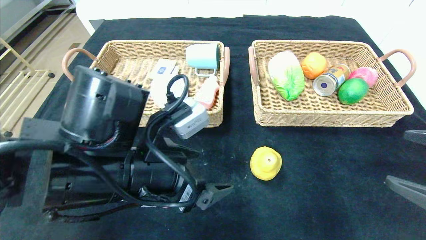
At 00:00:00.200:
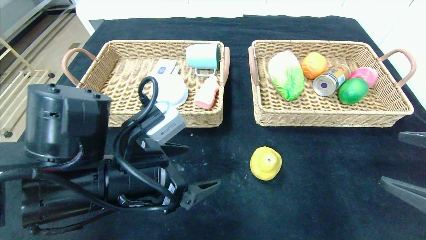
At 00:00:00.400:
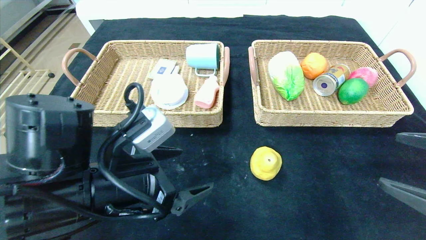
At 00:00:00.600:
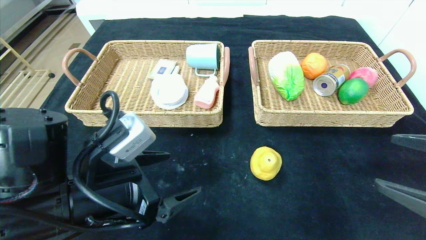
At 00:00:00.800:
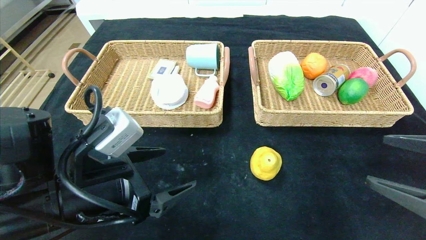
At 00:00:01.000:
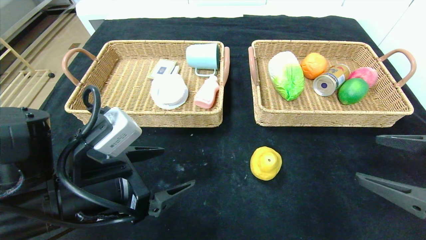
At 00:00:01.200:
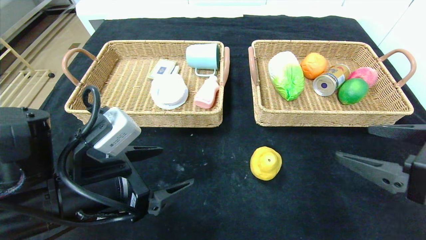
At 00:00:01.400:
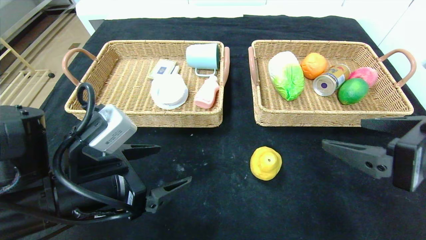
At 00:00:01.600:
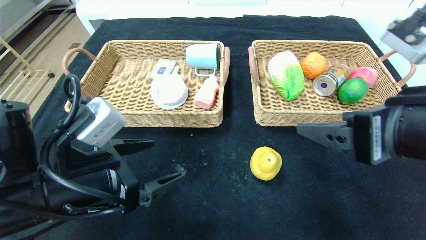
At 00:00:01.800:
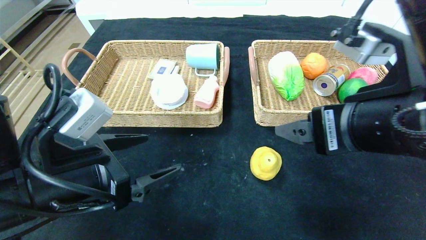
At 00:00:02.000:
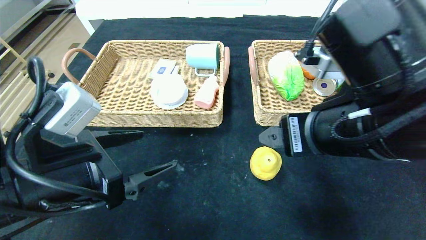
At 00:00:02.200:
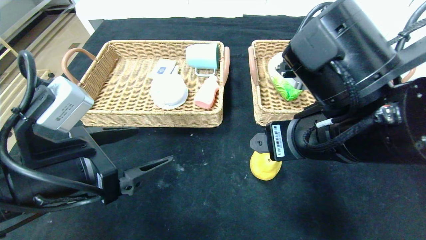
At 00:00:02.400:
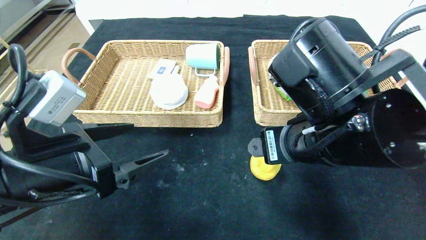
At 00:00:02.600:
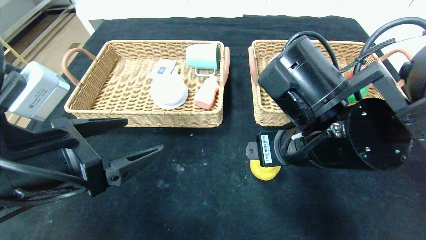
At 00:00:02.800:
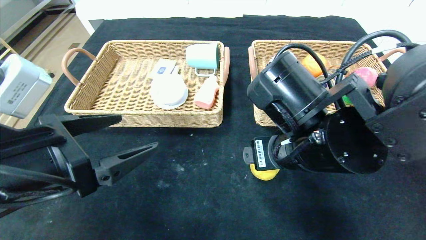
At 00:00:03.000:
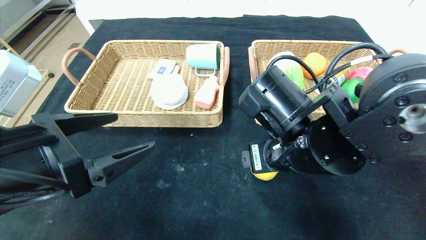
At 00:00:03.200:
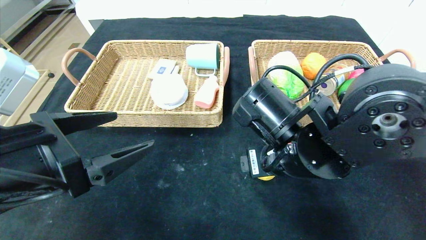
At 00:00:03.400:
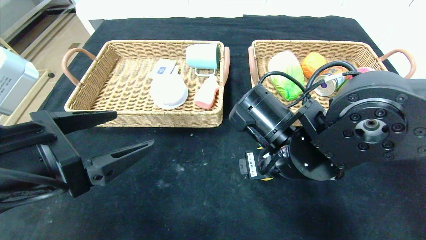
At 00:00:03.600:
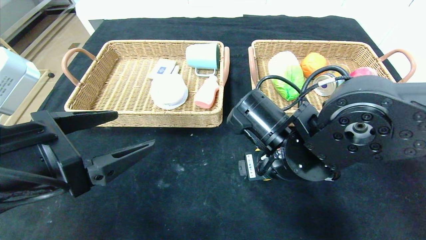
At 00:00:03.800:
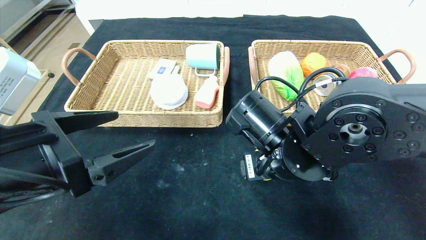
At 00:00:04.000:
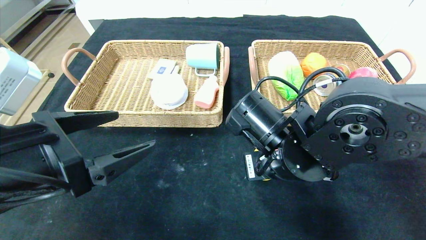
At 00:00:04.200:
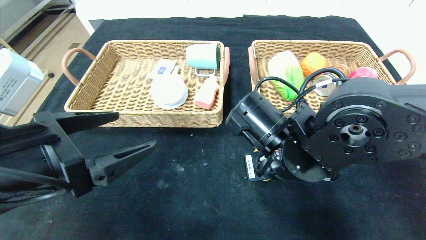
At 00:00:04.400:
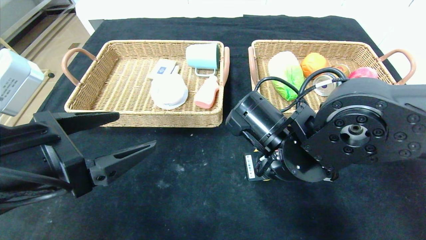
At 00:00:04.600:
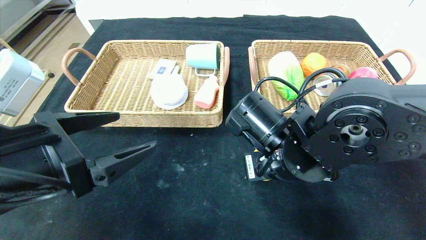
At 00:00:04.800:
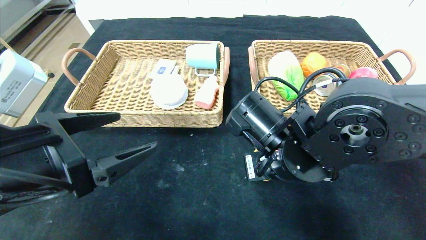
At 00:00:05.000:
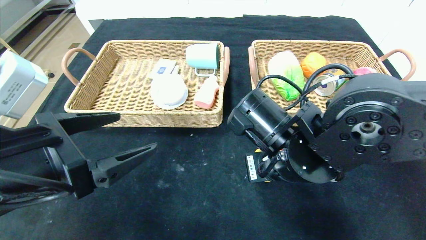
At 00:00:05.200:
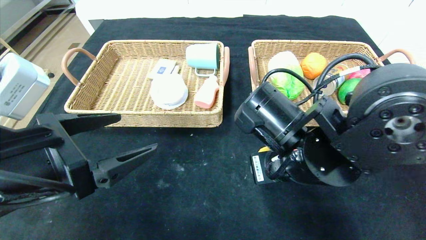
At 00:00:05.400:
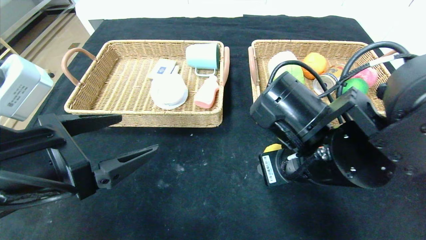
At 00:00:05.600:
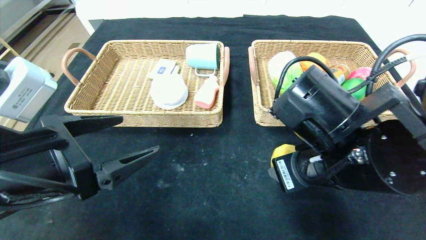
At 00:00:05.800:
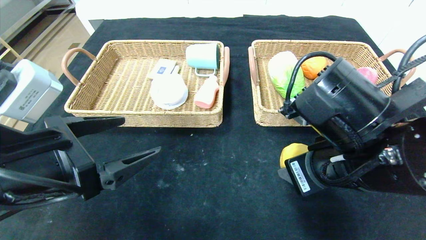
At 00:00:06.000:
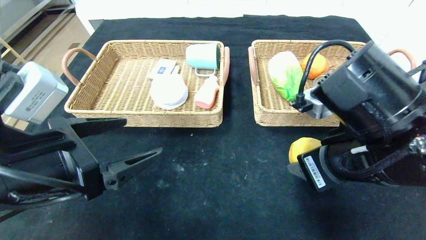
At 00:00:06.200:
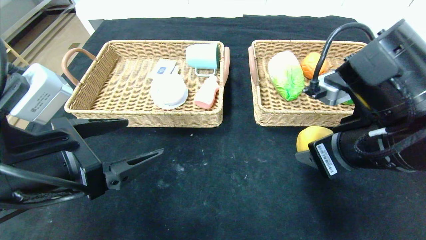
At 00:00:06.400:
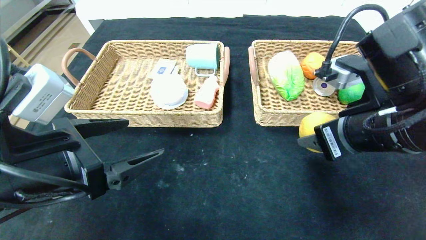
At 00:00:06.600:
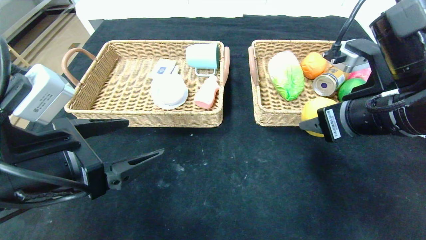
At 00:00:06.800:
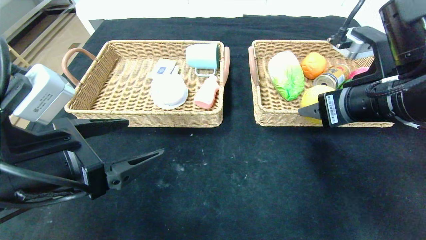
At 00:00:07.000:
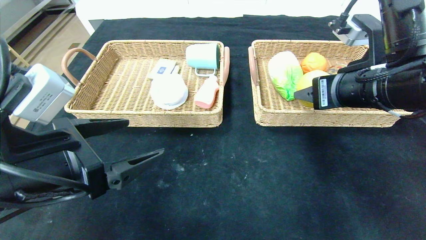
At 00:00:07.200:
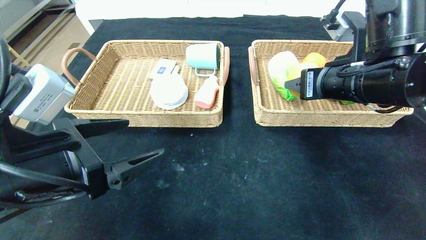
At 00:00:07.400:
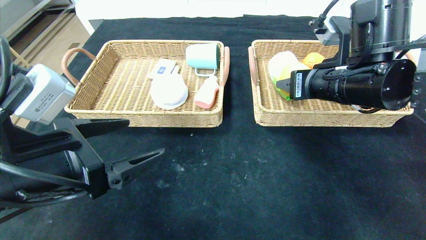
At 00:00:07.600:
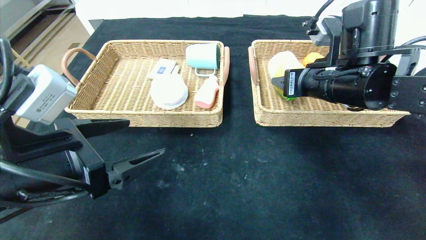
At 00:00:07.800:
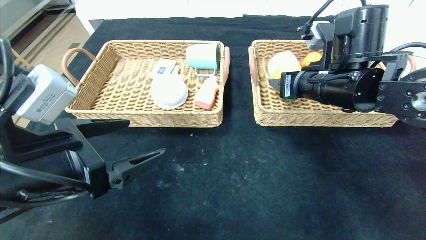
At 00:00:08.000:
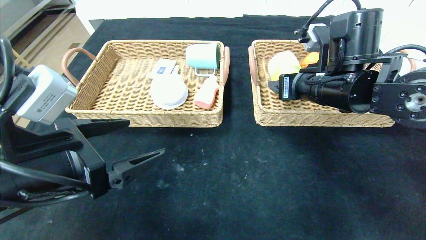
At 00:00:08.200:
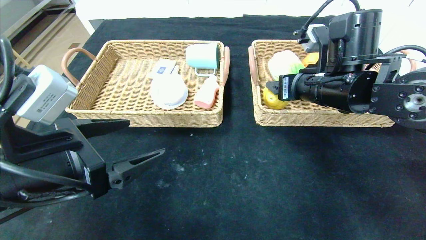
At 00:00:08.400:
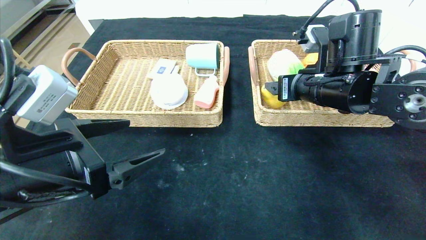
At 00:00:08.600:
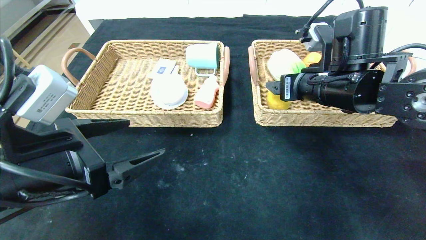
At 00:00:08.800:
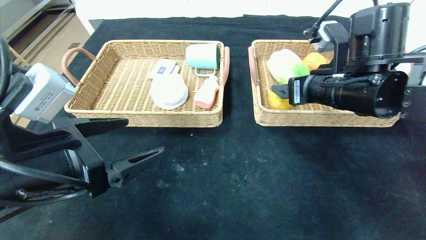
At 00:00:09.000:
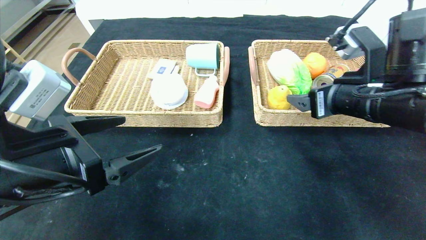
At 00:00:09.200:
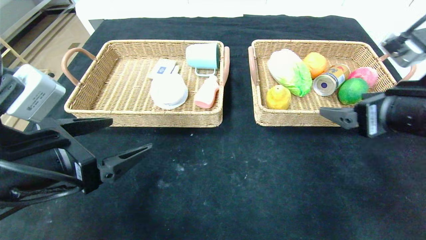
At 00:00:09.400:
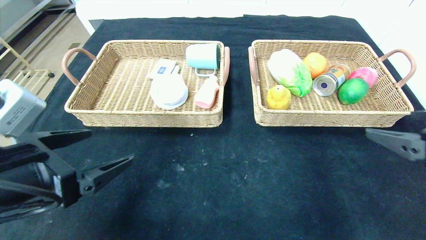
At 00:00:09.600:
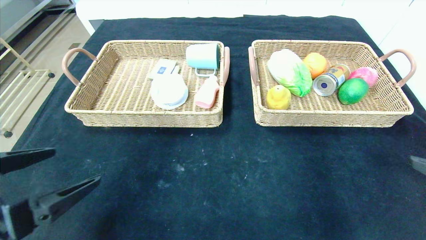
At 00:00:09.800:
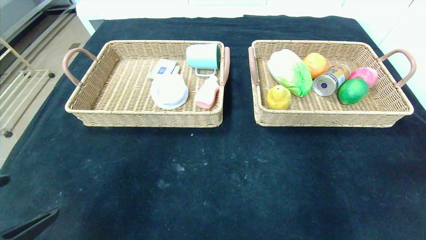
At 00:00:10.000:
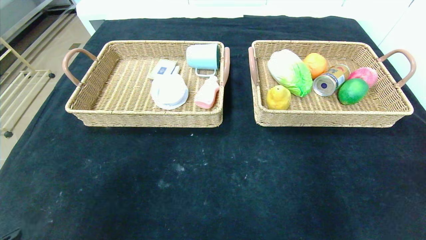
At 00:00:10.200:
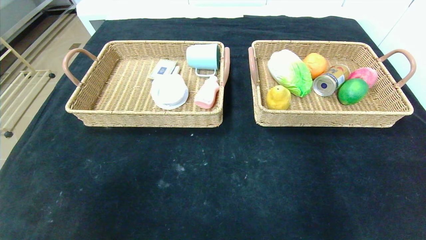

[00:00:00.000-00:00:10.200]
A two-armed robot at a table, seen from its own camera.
Step, 00:00:00.000 to 00:00:08.400: Grasp the pear and put it in the right basket.
00:00:00.000 to 00:00:01.400: Both grippers move to the left, approximately 10 cm.
00:00:01.400 to 00:00:03.000: The left gripper moves some 5 cm; the right gripper travels to the left and forward by roughly 15 cm.
00:00:03.000 to 00:00:04.400: The right gripper closes up.
00:00:04.400 to 00:00:05.800: The right gripper goes roughly 10 cm to the right and backward.
00:00:05.800 to 00:00:07.200: The right gripper travels forward by about 10 cm.
00:00:07.200 to 00:00:08.800: The right gripper opens up.
00:00:08.800 to 00:00:10.200: The right gripper is displaced backward and to the right by roughly 35 cm, while the left gripper travels backward and to the left by roughly 20 cm.
